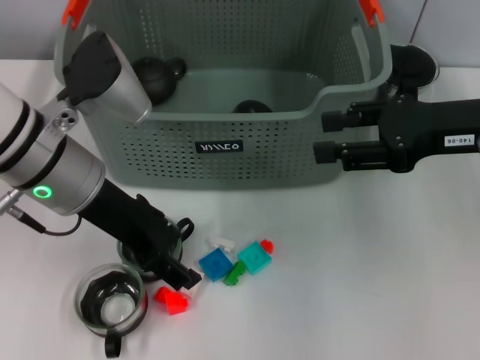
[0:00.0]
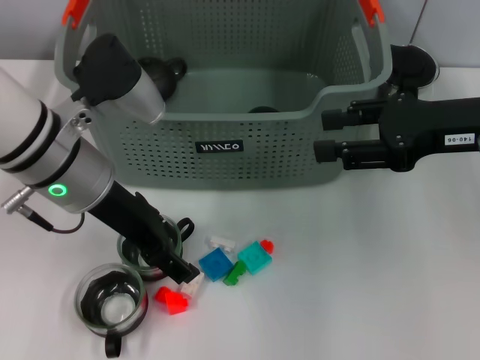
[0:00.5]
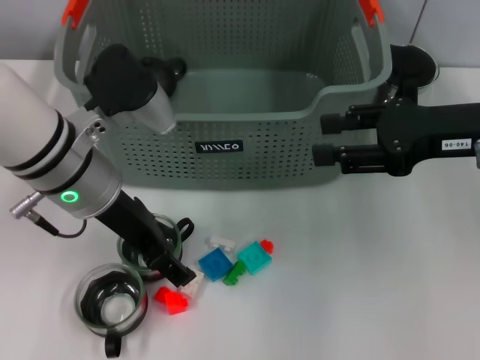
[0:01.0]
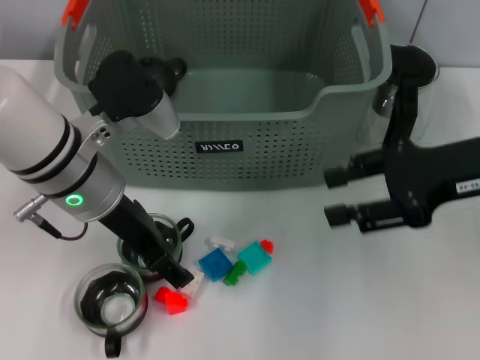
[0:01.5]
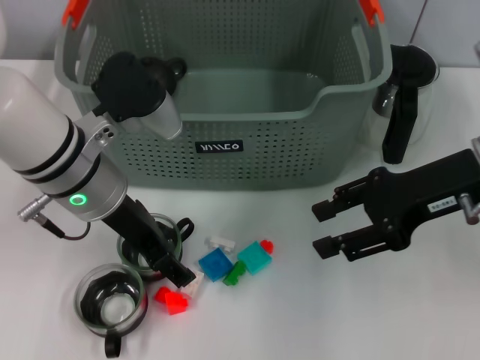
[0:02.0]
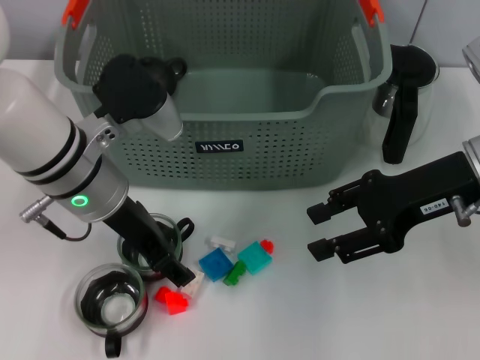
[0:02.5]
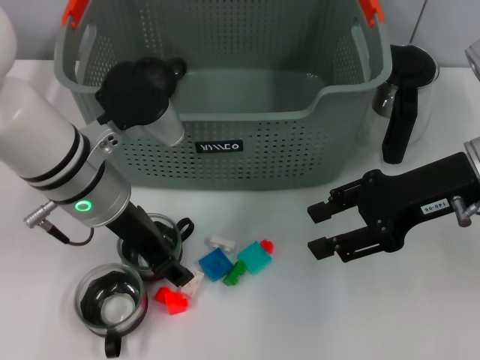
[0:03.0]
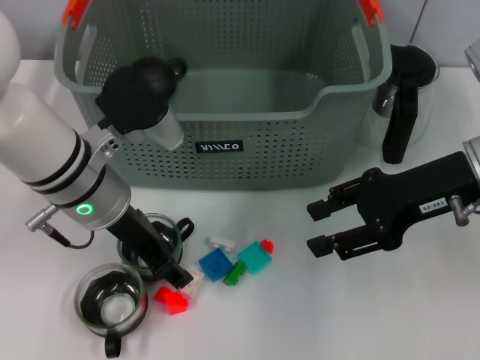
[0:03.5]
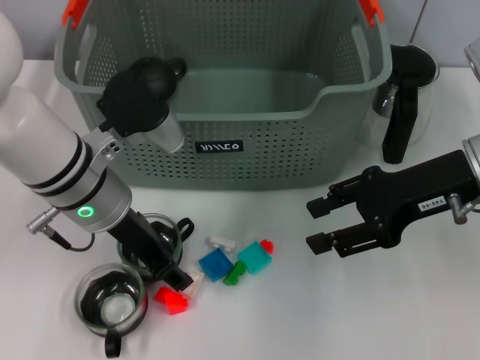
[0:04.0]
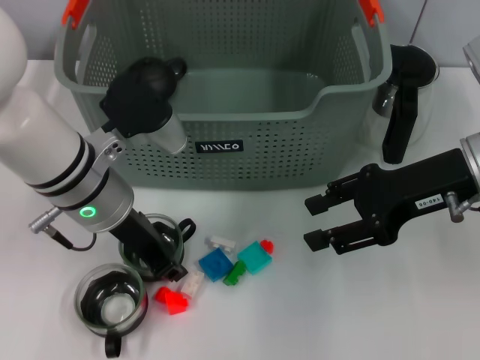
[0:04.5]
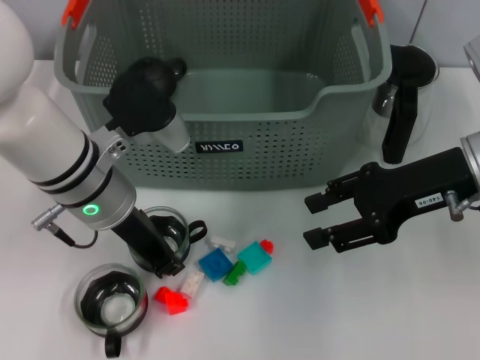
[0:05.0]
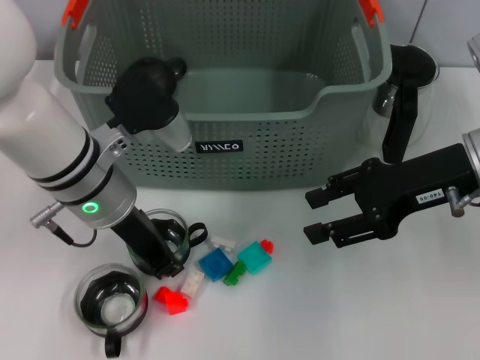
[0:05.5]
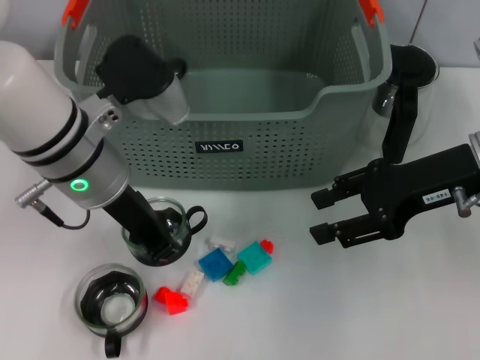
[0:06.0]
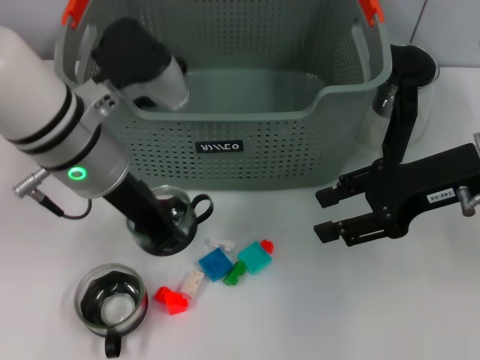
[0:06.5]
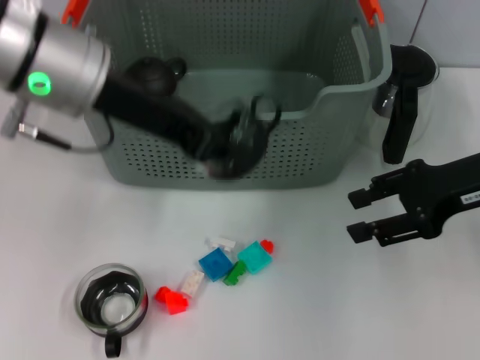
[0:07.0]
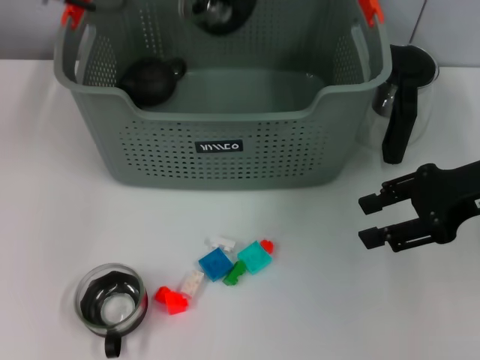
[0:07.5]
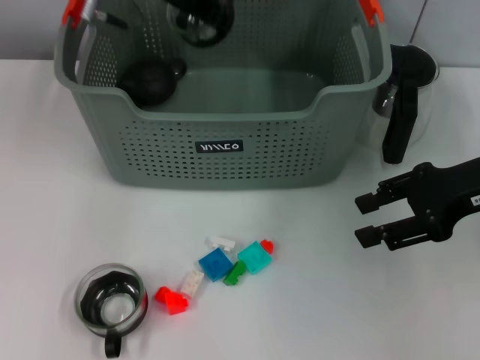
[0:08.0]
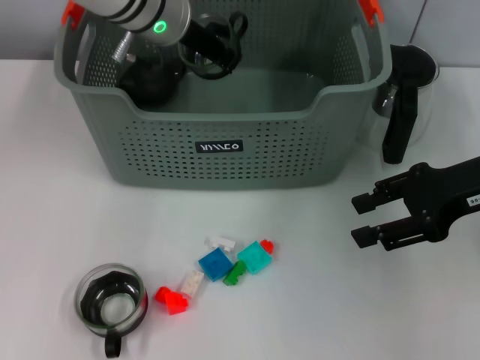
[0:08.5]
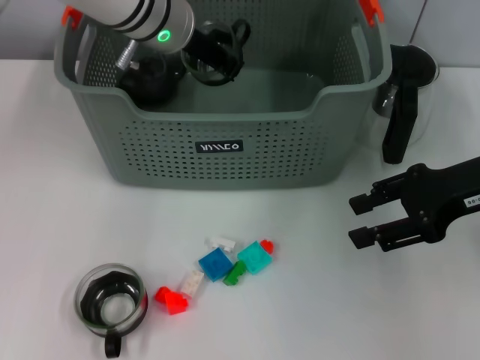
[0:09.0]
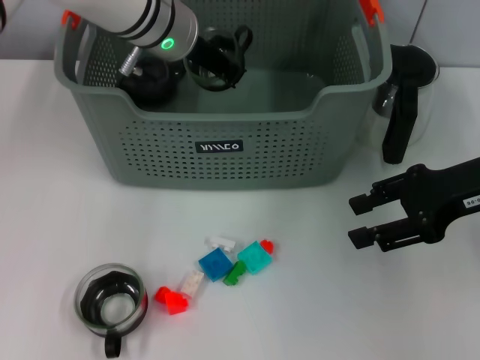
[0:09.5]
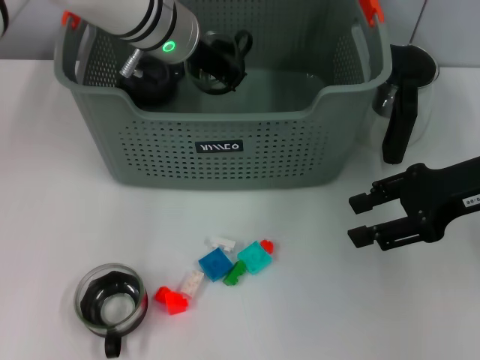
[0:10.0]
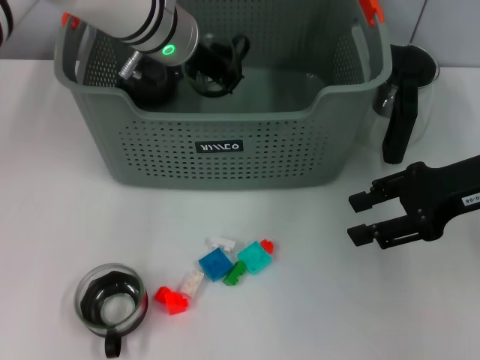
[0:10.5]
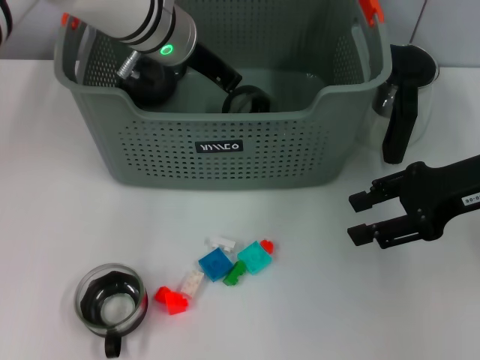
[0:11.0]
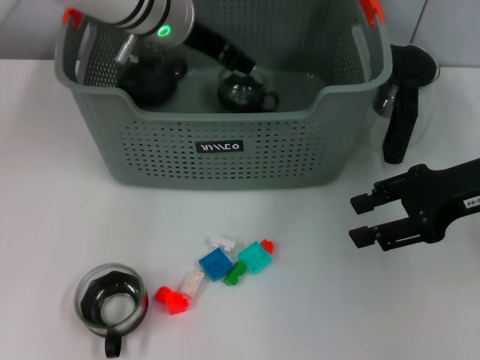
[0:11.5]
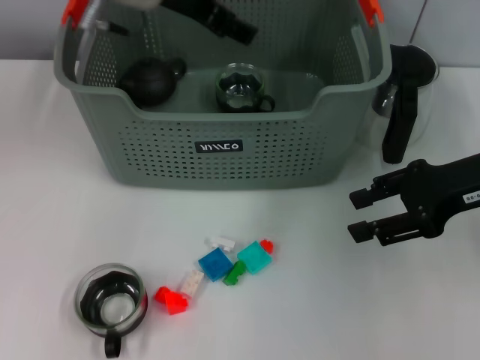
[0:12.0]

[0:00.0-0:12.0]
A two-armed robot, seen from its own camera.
Task of the whole recording: pick up the teacup on the table and place it into the storage bin, pick up the block on the table and place it into the storage bin.
Step, 0:00.0 to 0:05.0: Grasp the cup with left gripper.
Step, 0:05.5 to 0:10.5: Place the cup in the storage box with left gripper.
0:02.0 to 0:04.0: The grippers make only small movements.
0:04.0 to 0:06.0: The left gripper closes its fingers.
0:06.0 to 0:08.0: The left gripper travels forward and upward by about 15 cm.
0:08.0 to 0:10.0: The left gripper travels downward by roughly 5 cm.
0:10.0 to 0:12.0: The left gripper moves upward, about 5 cm, and opens up.

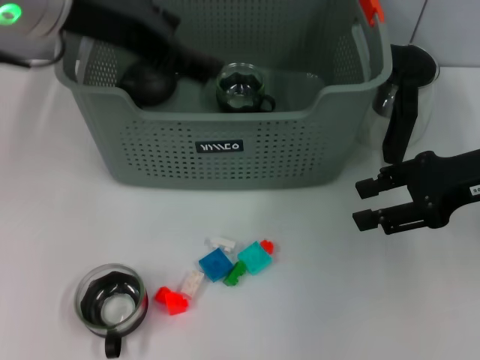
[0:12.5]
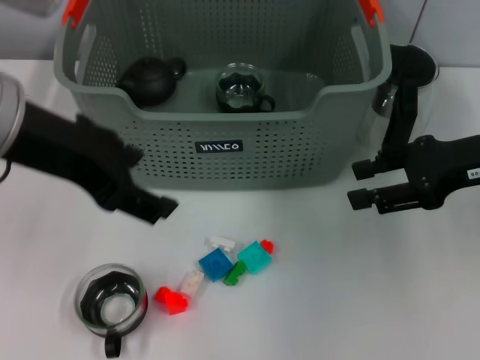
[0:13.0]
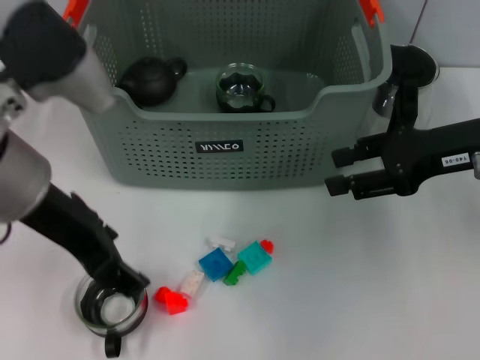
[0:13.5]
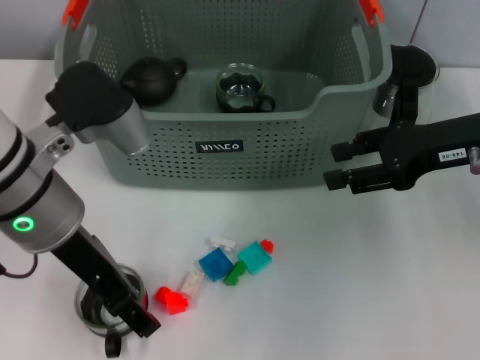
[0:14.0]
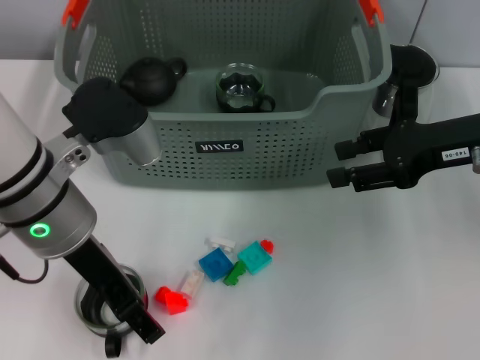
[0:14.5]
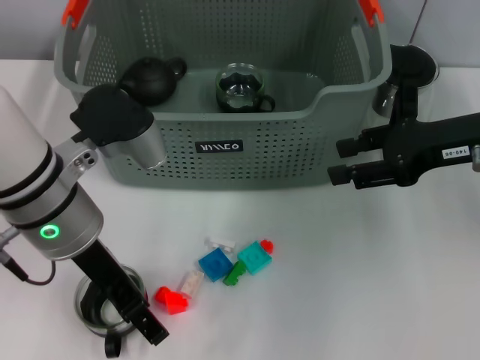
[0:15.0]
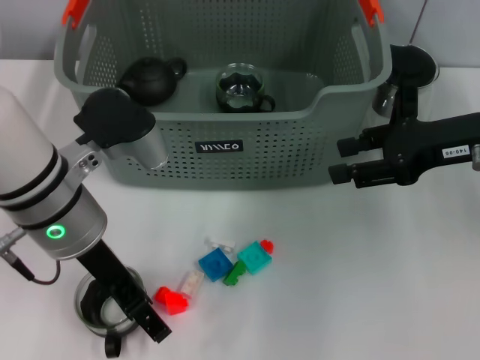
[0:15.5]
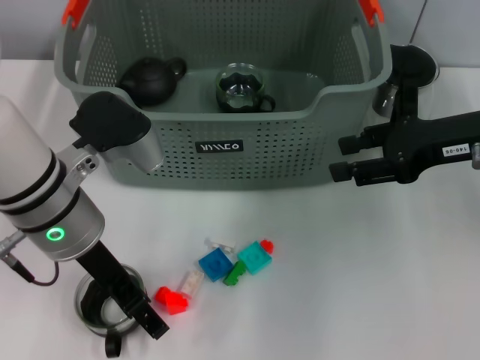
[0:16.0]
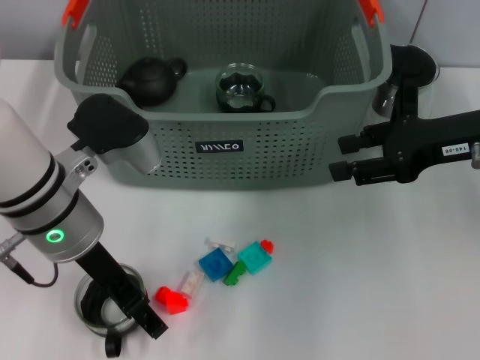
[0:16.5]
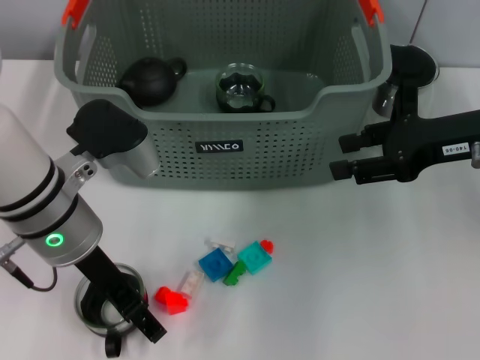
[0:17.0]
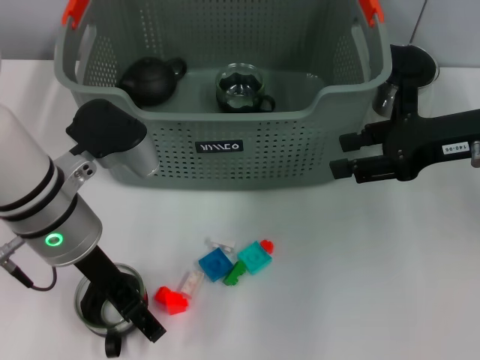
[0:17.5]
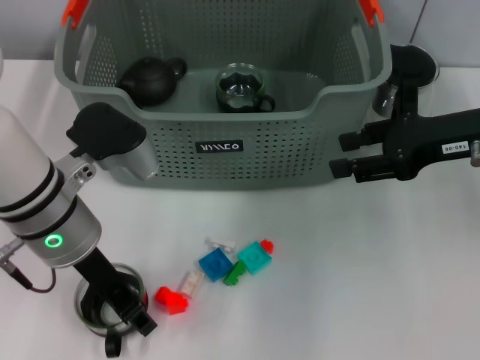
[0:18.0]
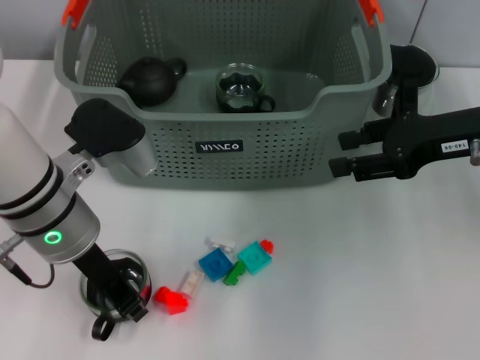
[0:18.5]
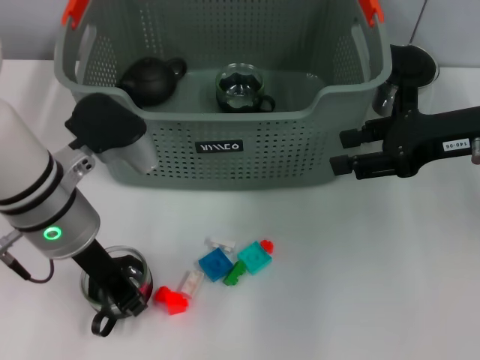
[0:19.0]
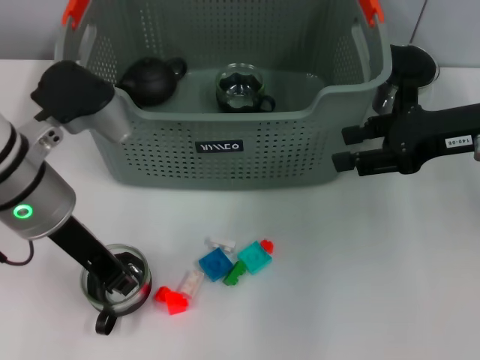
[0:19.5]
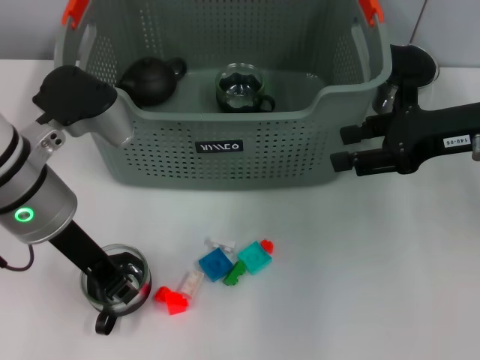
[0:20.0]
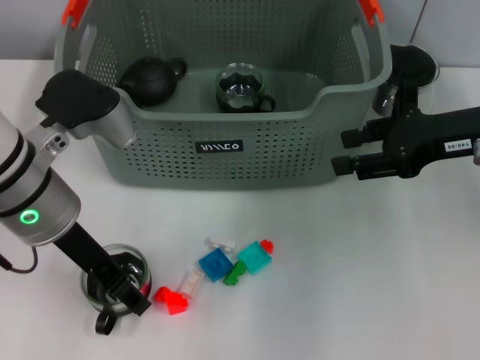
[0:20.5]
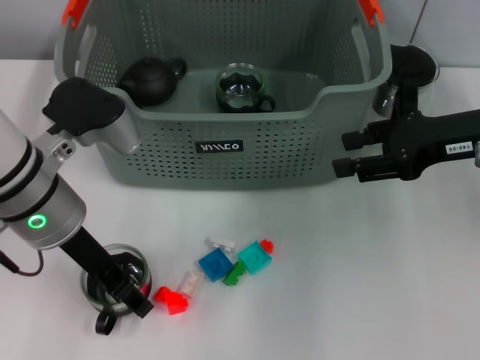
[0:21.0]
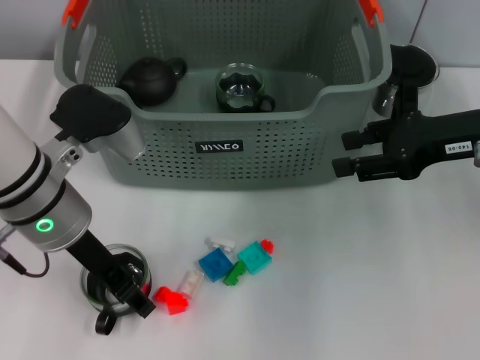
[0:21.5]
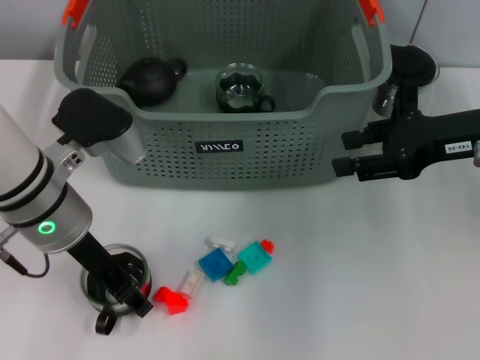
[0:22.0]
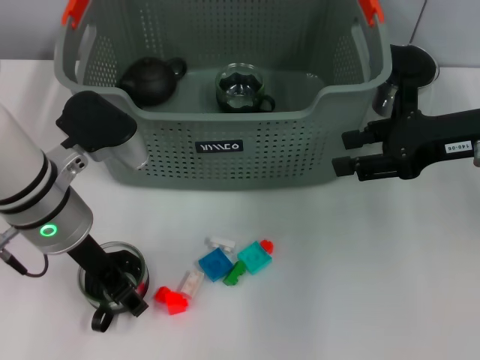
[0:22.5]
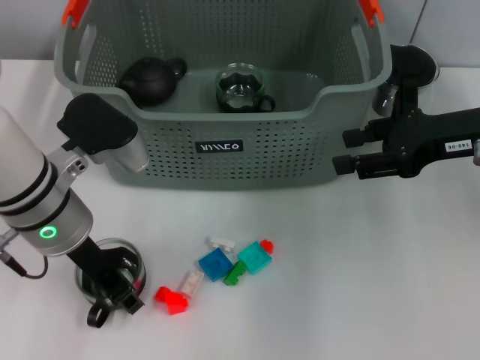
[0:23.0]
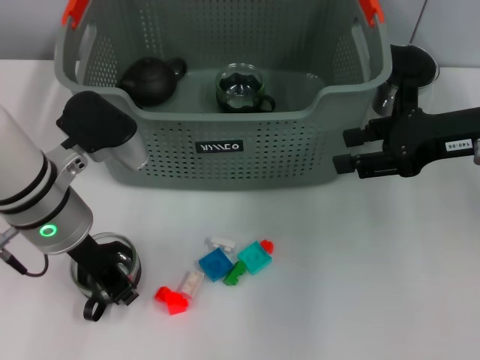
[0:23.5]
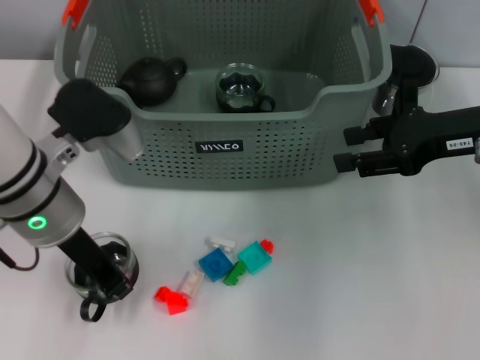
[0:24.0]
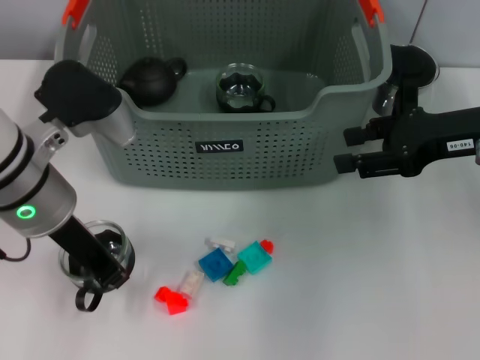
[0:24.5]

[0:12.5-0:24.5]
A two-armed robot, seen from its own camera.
Task of the whole recording: pick up the teacup on the table and place it into the storage bin, pick up the block on the table and place it into the storage bin.
Step, 0:12.5 to 0:23.0: Grasp the cup with left gripper.
0:12.5 to 0:14.5: The left gripper shifts some 15 cm downward.
0:14.5 to 0:16.5: The grippers move only a little.
0:16.5 to 0:18.5: The left gripper closes its fingers.
0:18.5 to 0:22.5: The grippers move only a little.
0:22.5 to 0:24.5: The left gripper closes.

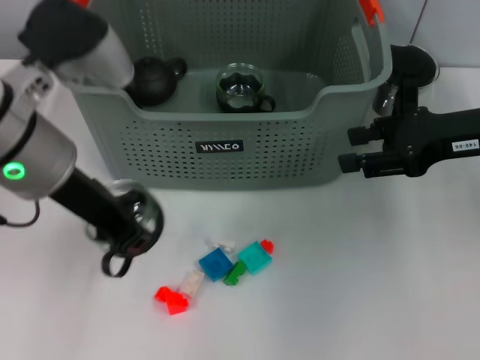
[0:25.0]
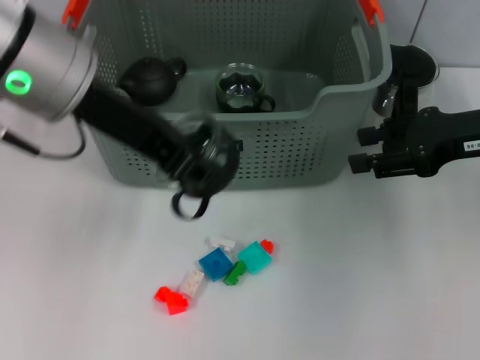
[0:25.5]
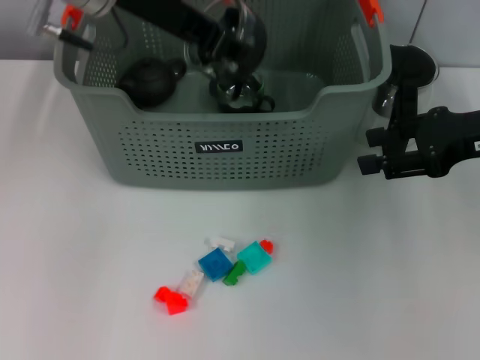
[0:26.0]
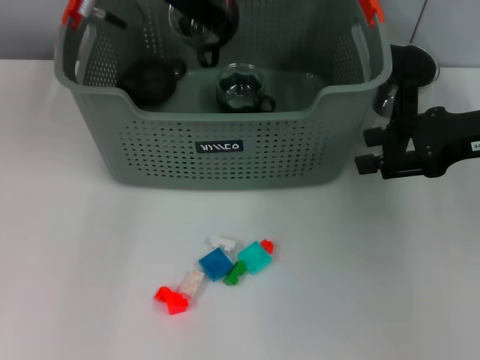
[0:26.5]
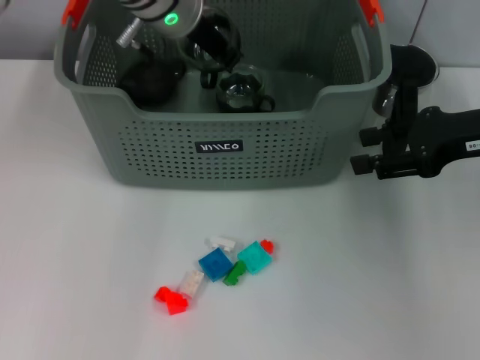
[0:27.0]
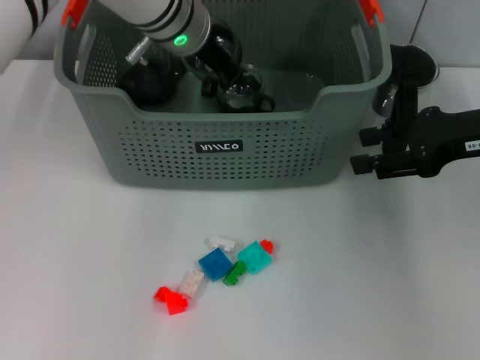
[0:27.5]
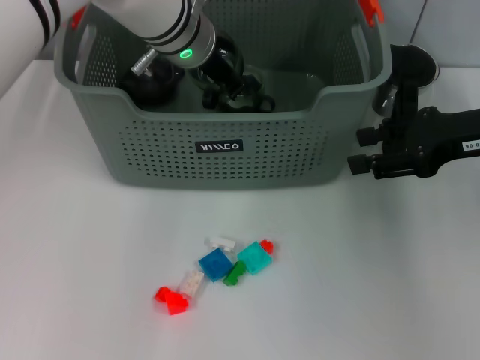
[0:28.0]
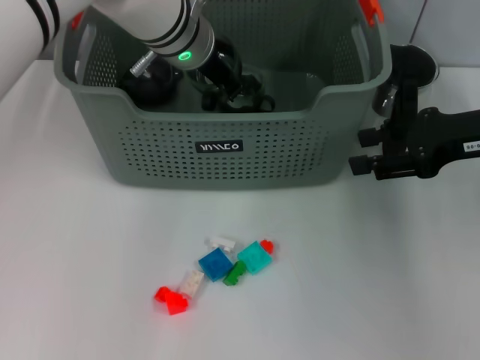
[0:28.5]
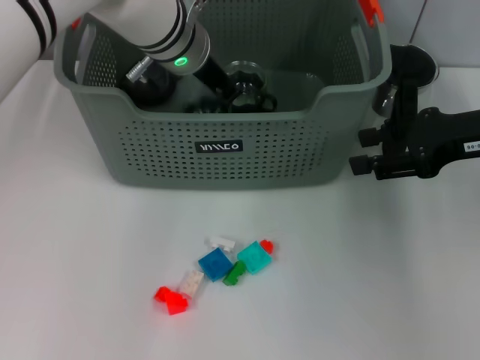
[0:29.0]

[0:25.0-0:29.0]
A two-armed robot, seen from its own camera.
Task of the whole recording: pick up the teacup on the table and place it into the storage bin, pick up the block on the table and place it into the storage bin.
Step, 0:25.0 to 0:29.0: Place the cup in the storage box with left gripper.
0:25.0 to 0:27.0: The left gripper moves forward and to the right, some 20 cm.
0:27.0 to 0:29.0: The grippers stay close to where they were, moving slightly.
